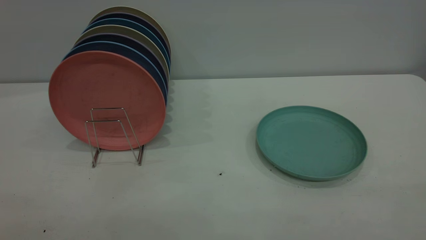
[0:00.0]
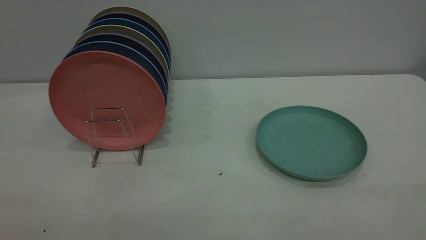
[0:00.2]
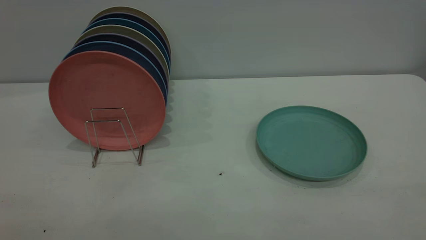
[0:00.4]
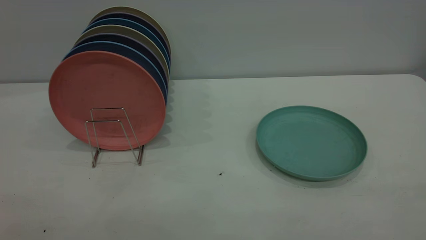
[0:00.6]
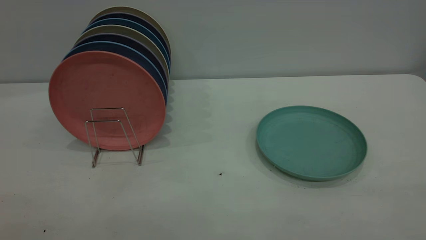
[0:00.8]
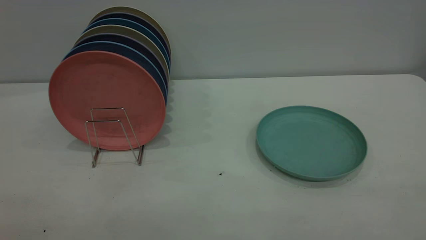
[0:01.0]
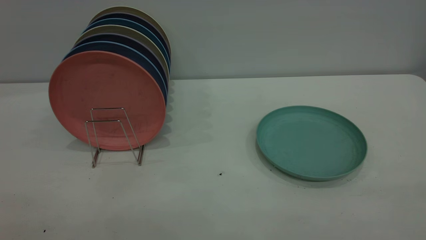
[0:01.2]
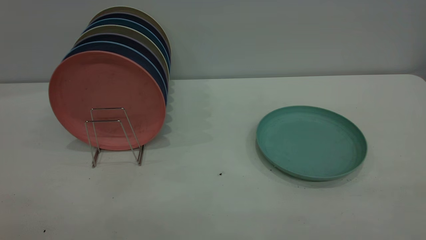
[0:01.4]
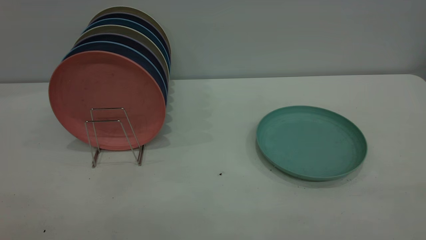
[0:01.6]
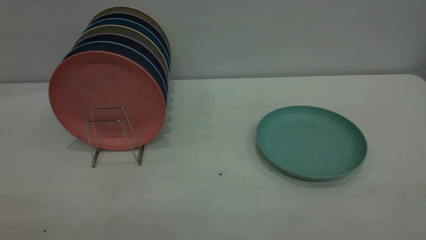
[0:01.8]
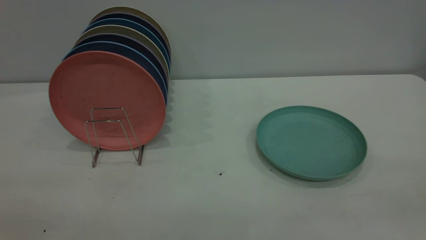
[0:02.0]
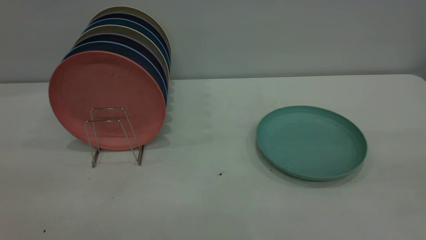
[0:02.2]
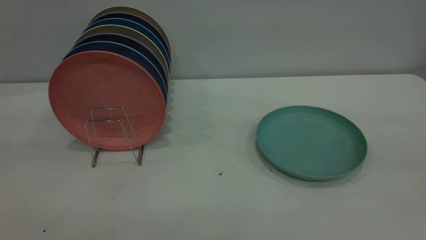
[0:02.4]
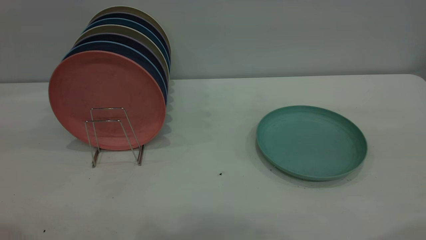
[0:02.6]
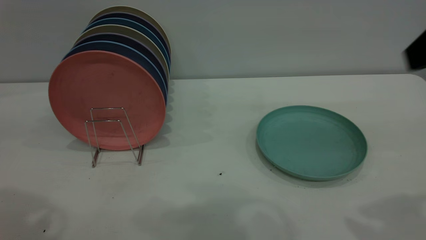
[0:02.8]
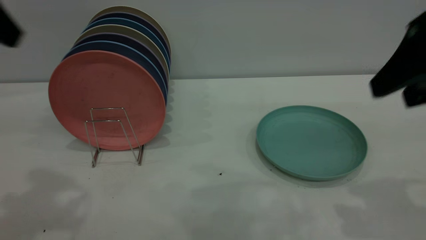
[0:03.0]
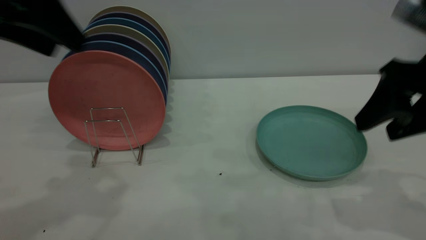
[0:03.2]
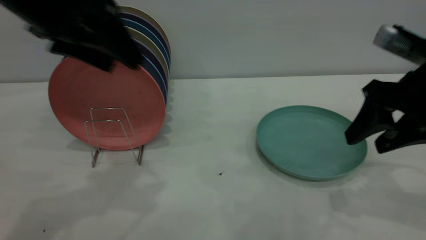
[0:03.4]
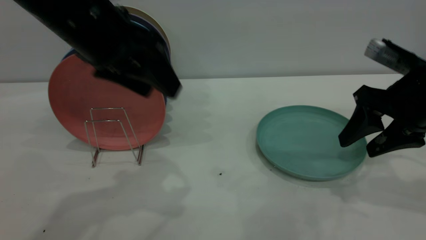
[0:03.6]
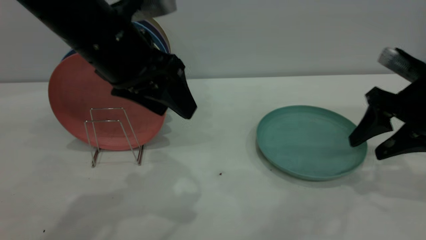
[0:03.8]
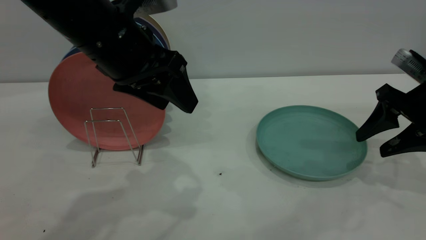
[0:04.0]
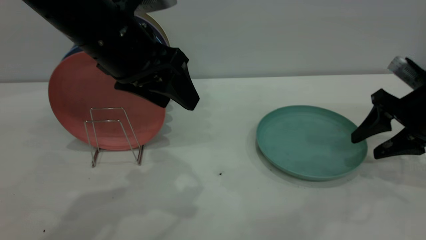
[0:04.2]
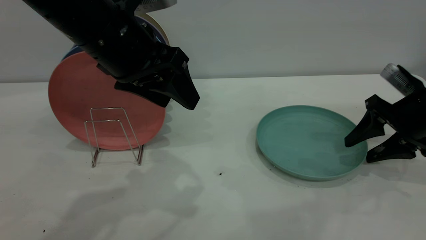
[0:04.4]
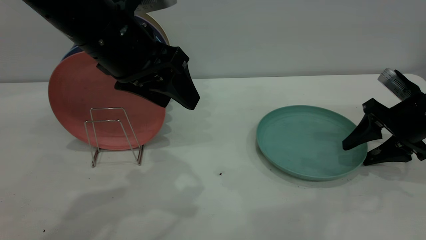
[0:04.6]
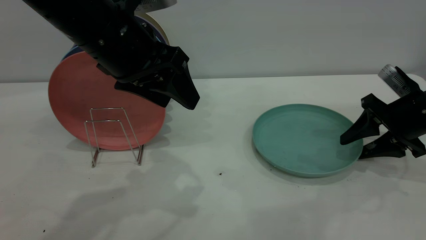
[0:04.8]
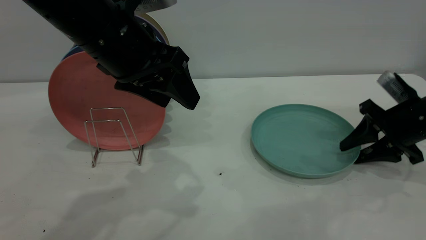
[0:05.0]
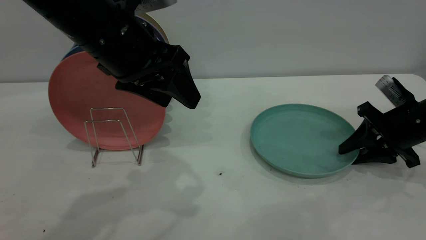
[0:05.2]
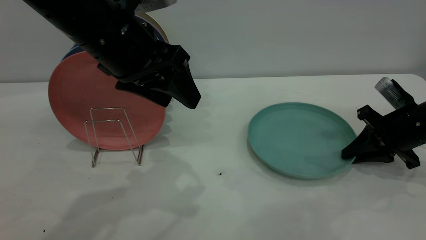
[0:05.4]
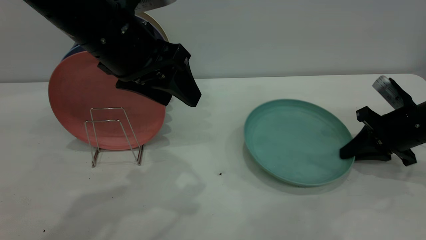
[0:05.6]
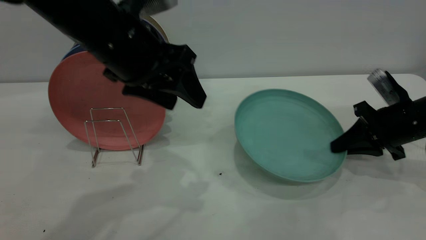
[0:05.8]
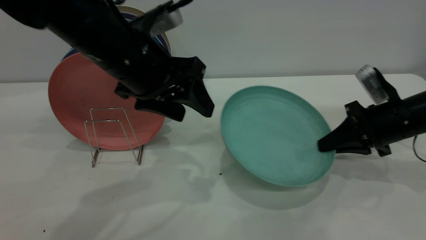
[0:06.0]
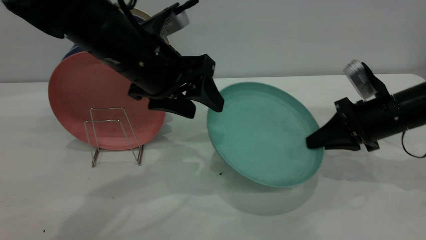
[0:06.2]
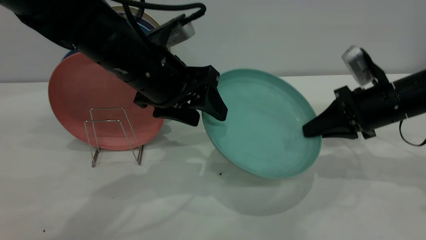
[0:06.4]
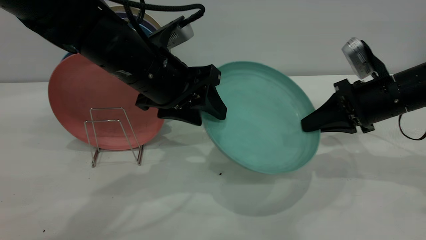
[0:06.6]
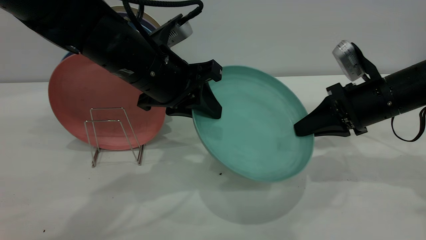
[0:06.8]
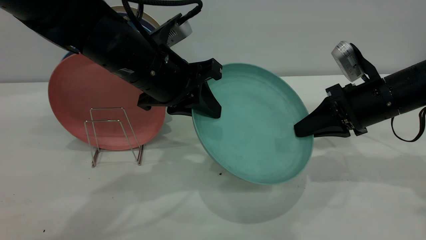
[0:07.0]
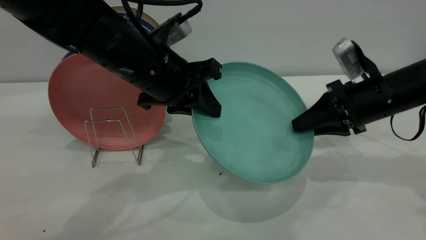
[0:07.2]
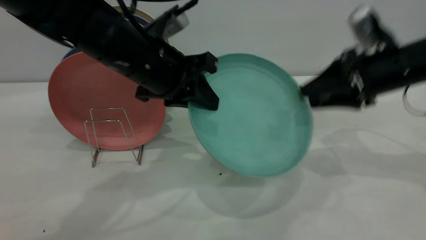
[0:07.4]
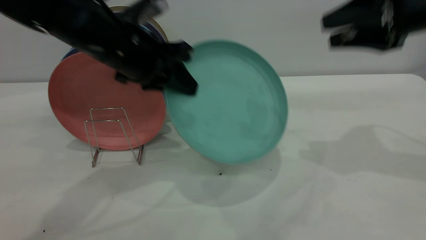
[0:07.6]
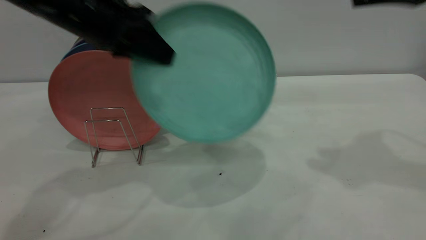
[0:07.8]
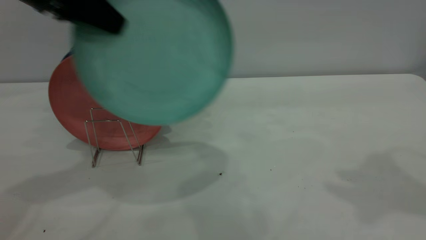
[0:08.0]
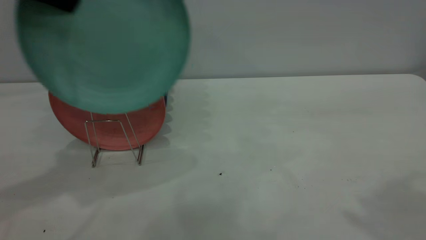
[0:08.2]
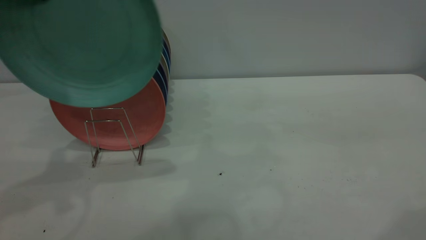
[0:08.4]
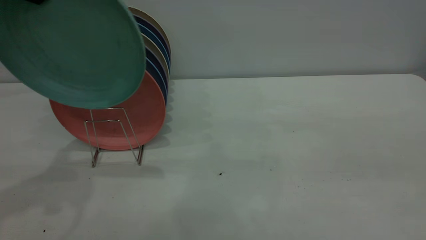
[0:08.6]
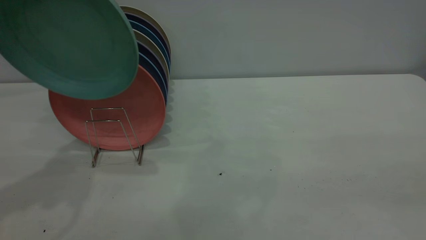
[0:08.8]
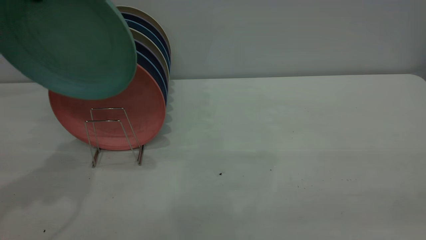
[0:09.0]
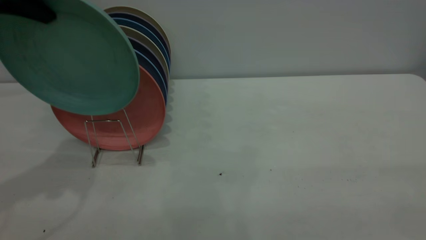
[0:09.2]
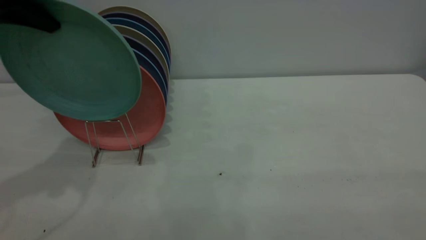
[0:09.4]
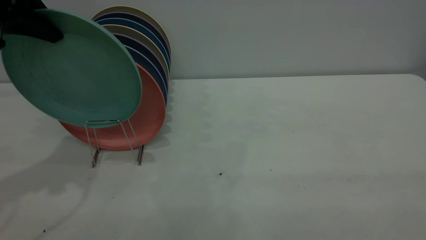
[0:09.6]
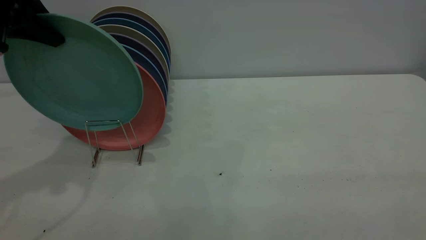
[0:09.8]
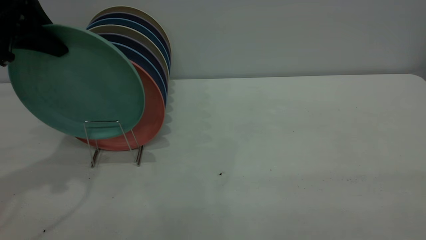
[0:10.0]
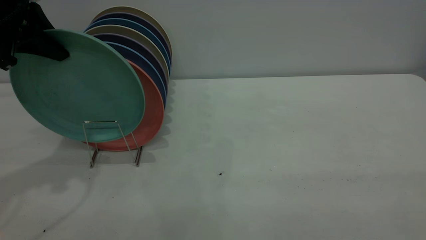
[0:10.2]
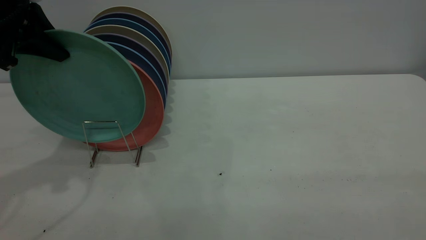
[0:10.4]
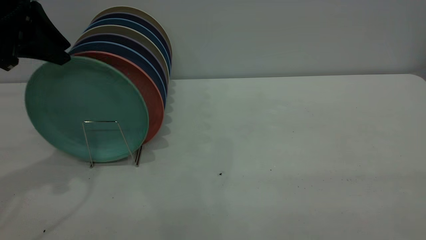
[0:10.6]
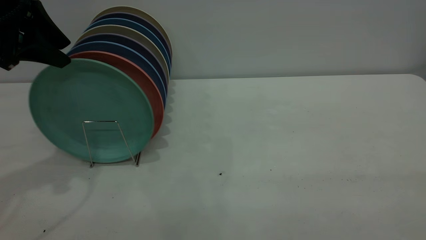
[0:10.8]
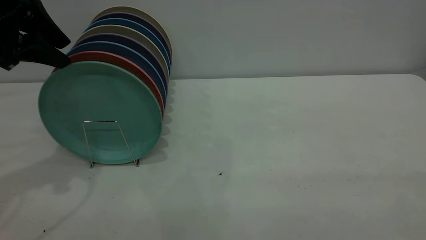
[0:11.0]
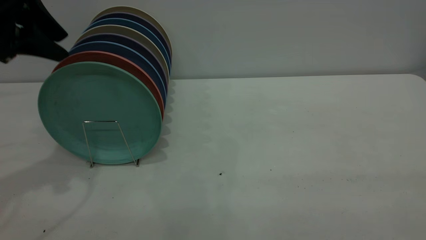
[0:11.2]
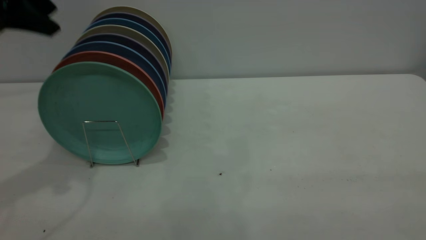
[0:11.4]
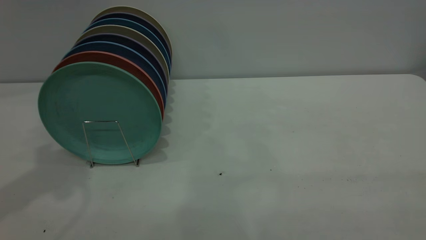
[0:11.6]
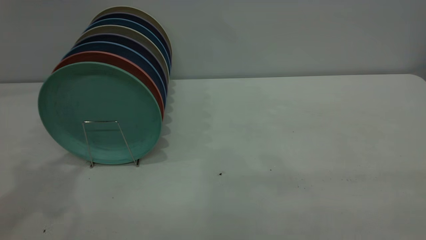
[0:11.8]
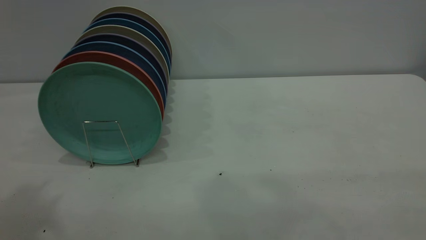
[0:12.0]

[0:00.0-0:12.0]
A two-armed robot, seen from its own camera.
Task of the whole recording: the right gripper grasp the green plate, the right gripper pass the green plate to the left gripper, and the left gripper place the green plate on the plate rack.
Step, 0:00.0 to 0:05.8: Pick up the plate with the right gripper.
Step, 0:06.0 to 0:07.6: Pass the plate from the right gripper to the left gripper.
Step, 0:07.8 to 0:11.4: Place the plate on the shelf.
0:00.0 to 0:01.6: Both grippers stay about where they are.
0:01.6 to 0:03.0: The two grippers go about 30 cm forward.
0:03.0 to 0:04.4: The right gripper shifts about 20 cm downward and forward; the left gripper moves to the right and downward, about 15 cm.
0:04.4 to 0:06.0: The right gripper closes up.
0:06.0 to 0:07.6: The left gripper closes its fingers; the right gripper moves upward, approximately 20 cm, and opens up.
0:07.6 to 0:09.0: The right gripper shifts approximately 35 cm backward. Meanwhile the left gripper travels to the left and upward by about 20 cm.
0:09.0 to 0:10.4: The left gripper is displaced downward by roughly 5 cm.
0:10.4 to 0:12.0: The left gripper heads upward and backward, covering some 25 cm, and opens its fingers.
